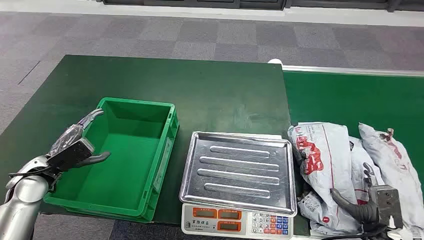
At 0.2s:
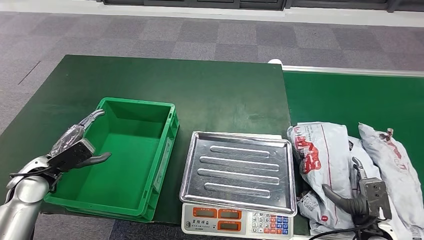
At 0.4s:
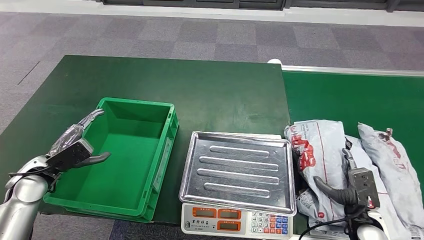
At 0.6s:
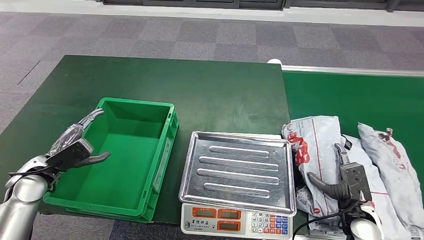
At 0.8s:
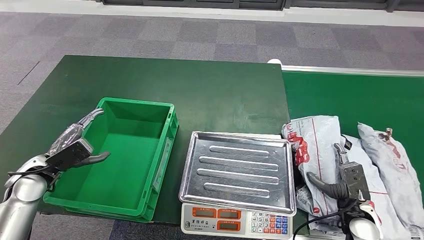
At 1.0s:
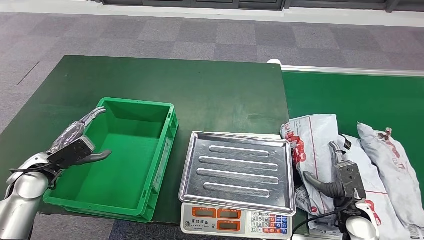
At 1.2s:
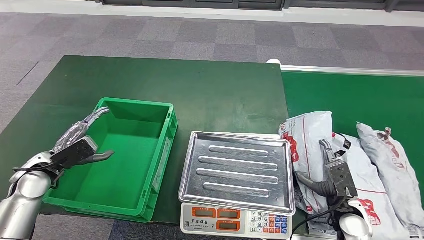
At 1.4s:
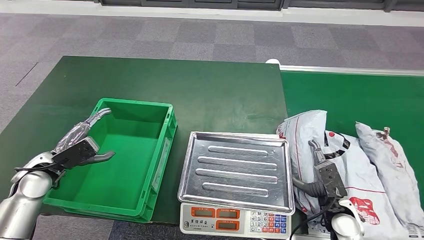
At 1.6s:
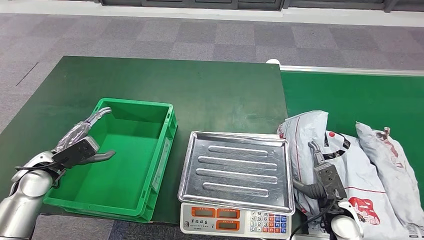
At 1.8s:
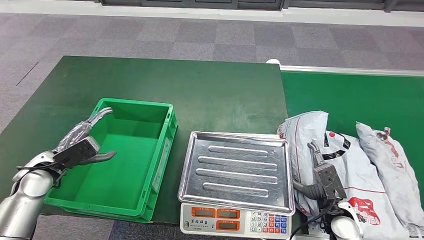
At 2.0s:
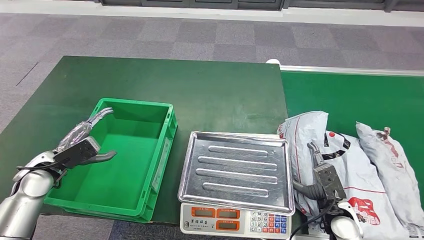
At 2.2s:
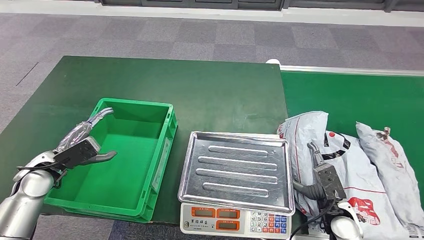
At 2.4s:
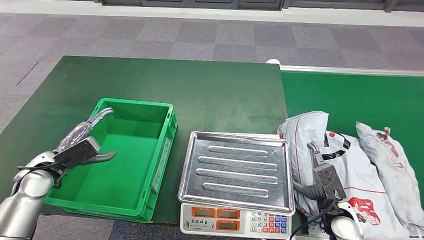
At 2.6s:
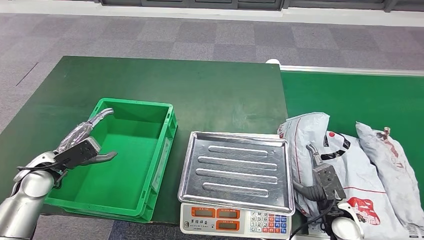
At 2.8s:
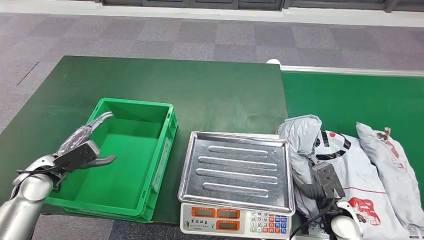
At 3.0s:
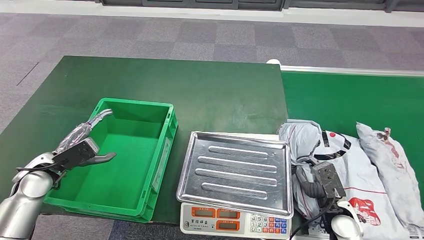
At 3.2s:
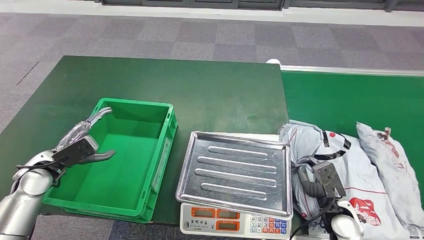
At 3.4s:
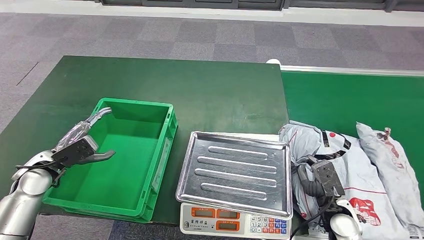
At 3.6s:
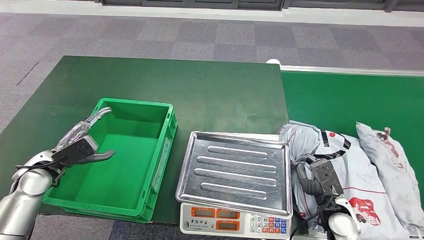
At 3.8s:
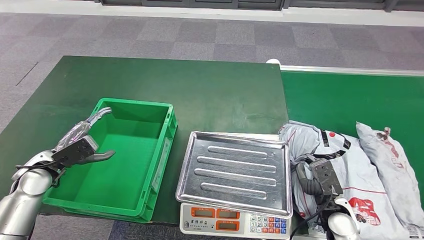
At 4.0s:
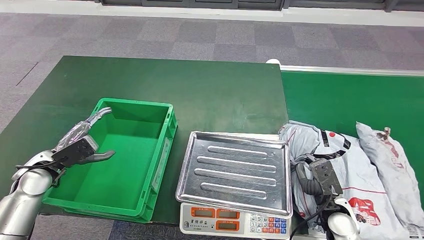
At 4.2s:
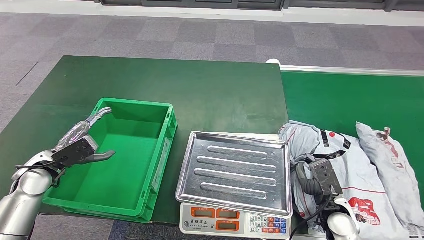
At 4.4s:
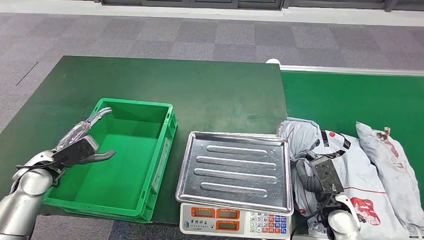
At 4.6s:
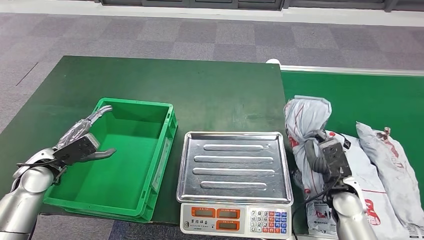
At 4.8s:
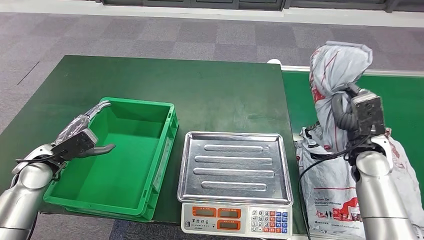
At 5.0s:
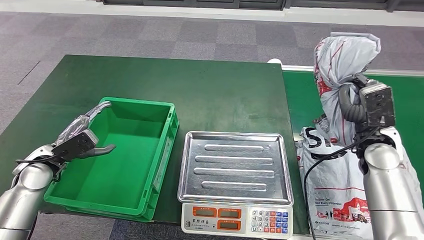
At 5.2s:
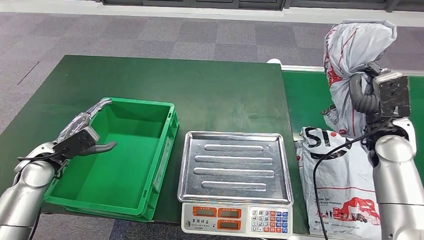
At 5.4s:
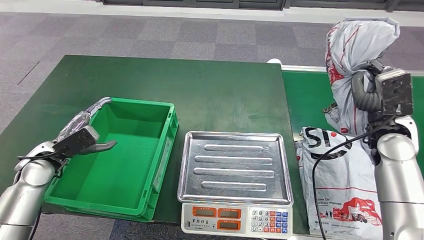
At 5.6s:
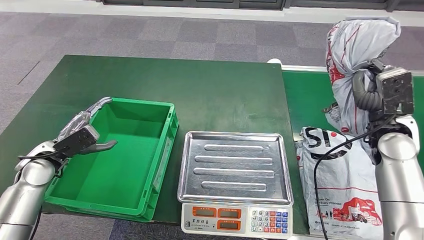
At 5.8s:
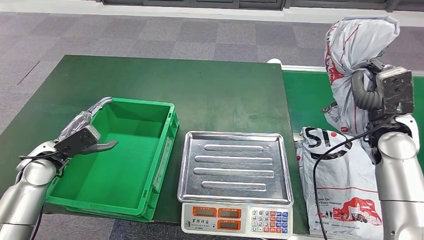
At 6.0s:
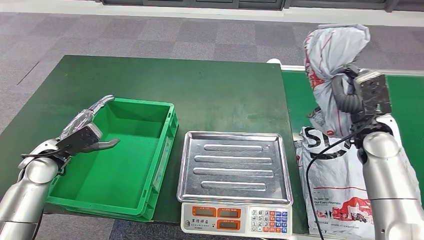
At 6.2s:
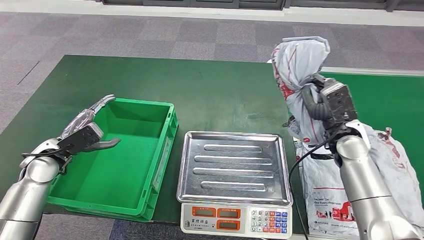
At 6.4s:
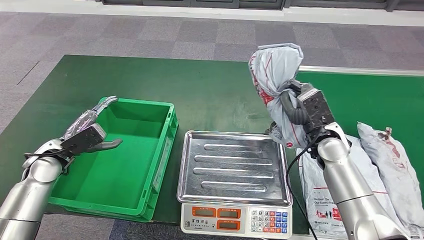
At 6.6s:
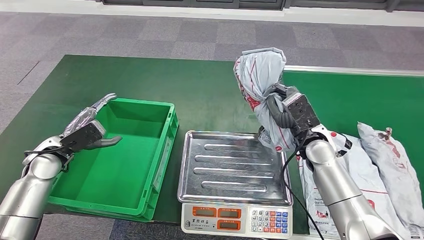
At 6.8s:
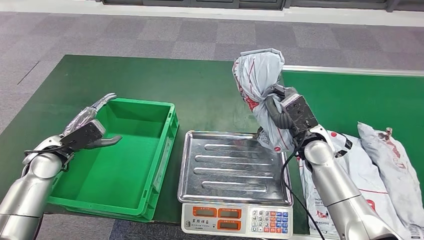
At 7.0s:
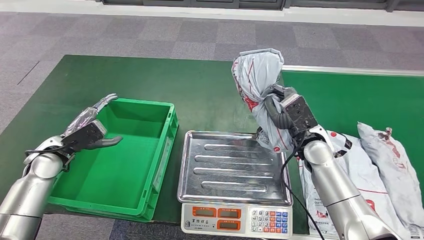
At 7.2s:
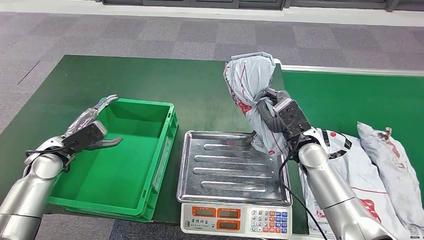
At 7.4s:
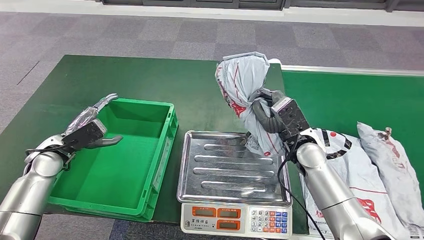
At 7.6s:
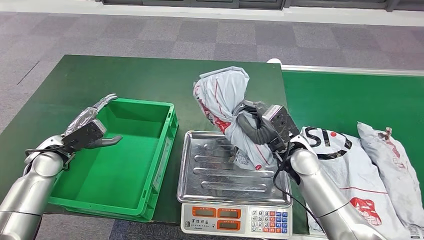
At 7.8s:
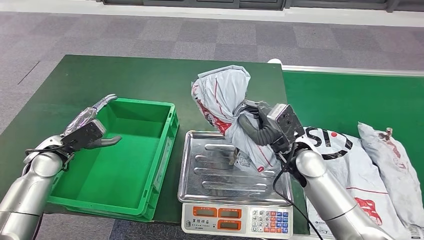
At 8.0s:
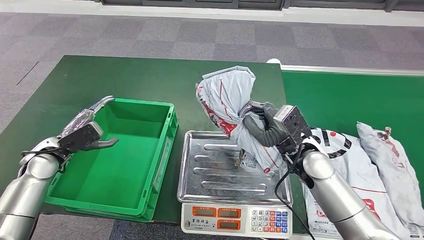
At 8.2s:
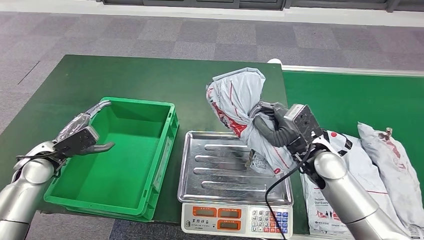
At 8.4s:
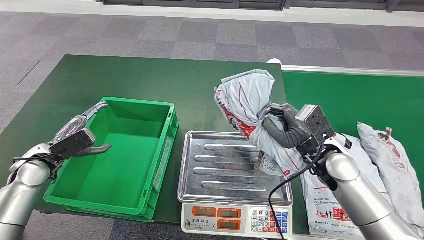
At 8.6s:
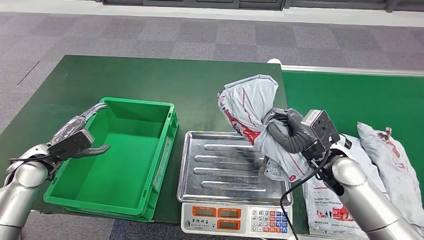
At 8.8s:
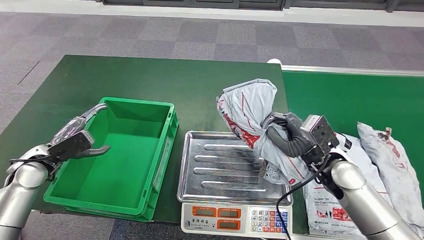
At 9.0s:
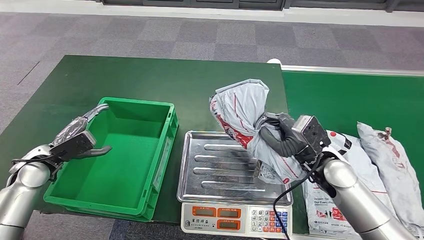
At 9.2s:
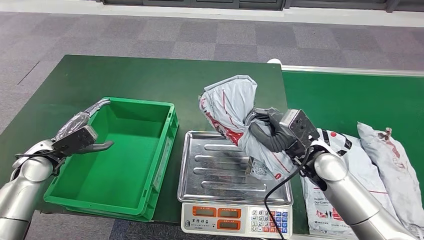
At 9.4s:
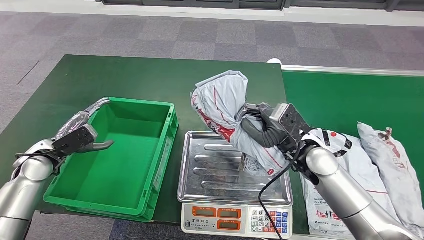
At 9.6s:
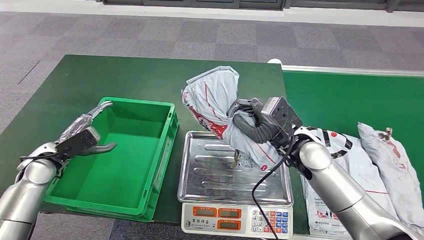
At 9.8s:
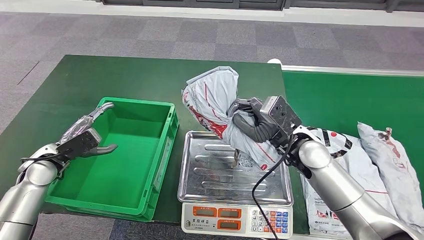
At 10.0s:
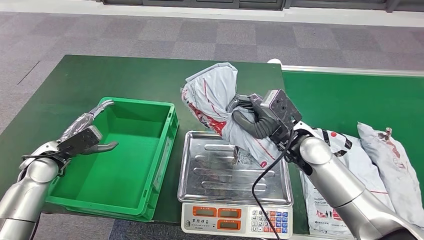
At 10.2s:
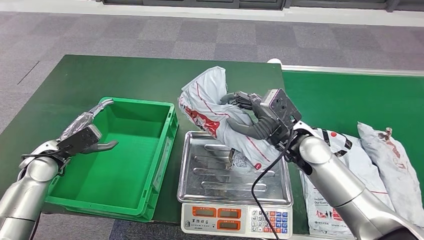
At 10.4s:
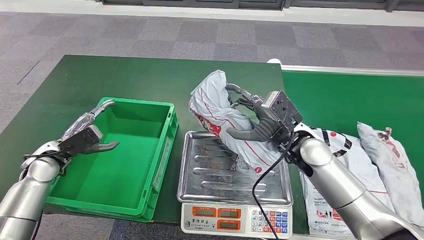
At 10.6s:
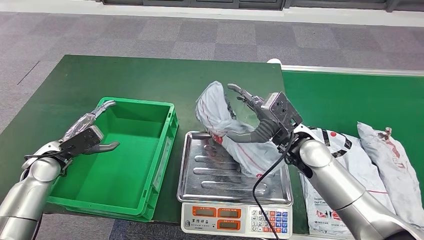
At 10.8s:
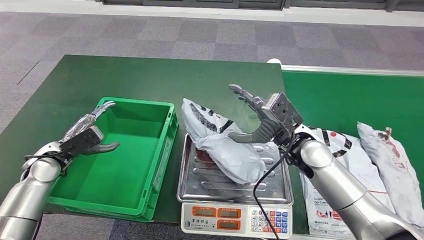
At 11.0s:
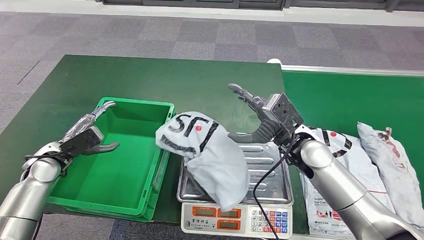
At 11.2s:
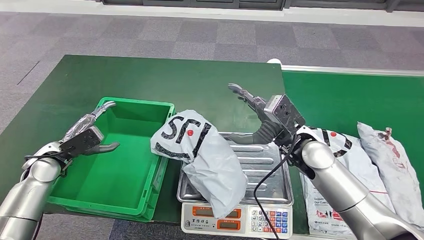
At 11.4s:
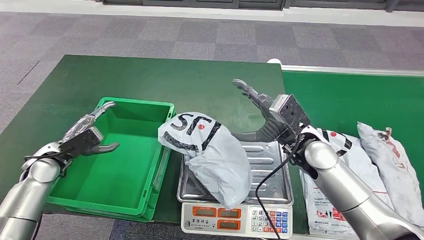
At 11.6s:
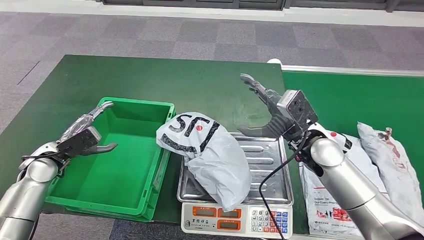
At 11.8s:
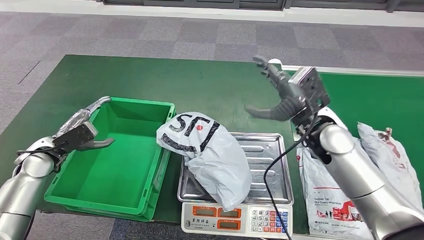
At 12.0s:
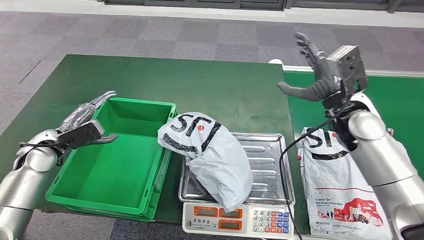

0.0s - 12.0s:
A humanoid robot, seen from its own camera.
Step, 0.0s - 5.4s: Take the parcel off the conveyor belt.
Step, 5.6s - 11.8s: Place the parcel onto the inbound machine.
1.6s - 3.0s: Both hands stay put.
3.0s - 4.4s: The hands move only a little.
9.0s - 10.4s: The right hand goes approximately 5 cm to the left.

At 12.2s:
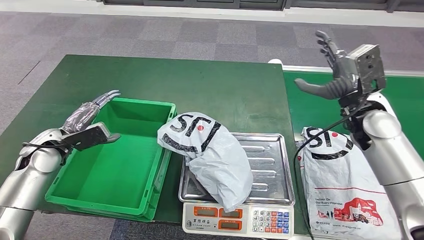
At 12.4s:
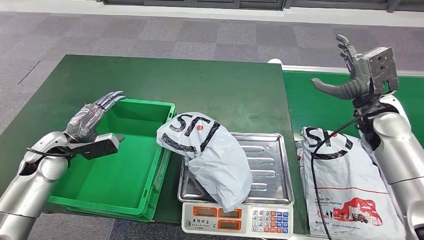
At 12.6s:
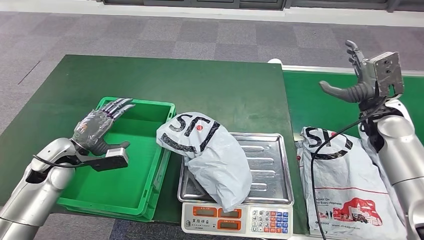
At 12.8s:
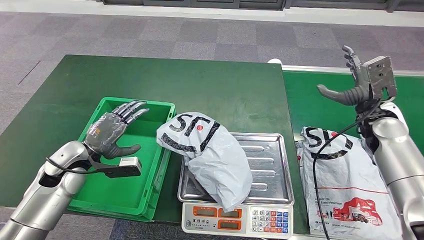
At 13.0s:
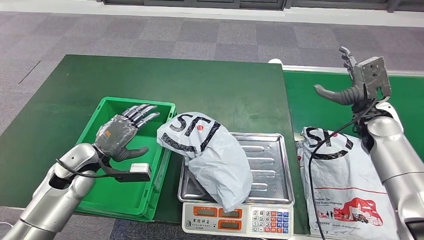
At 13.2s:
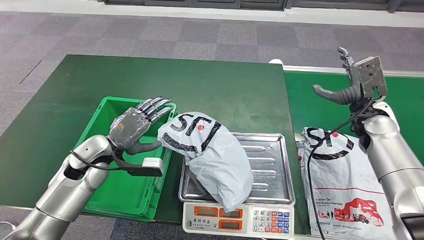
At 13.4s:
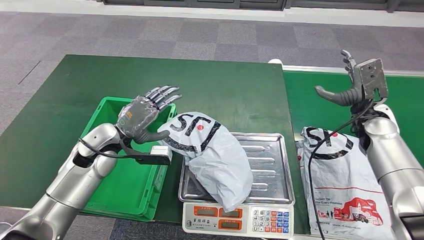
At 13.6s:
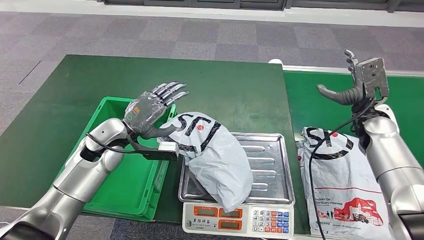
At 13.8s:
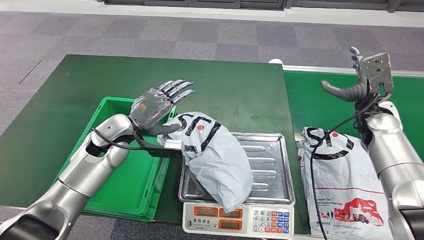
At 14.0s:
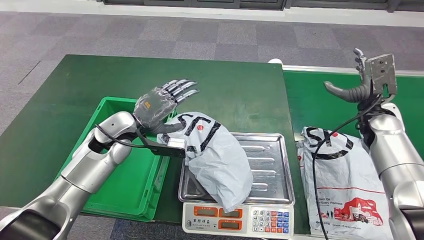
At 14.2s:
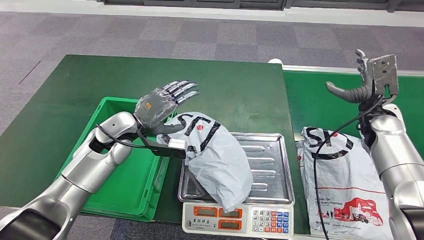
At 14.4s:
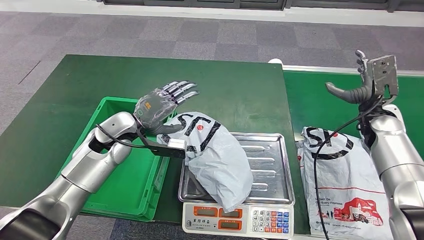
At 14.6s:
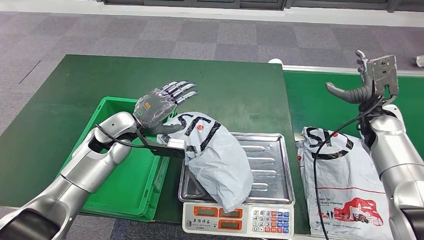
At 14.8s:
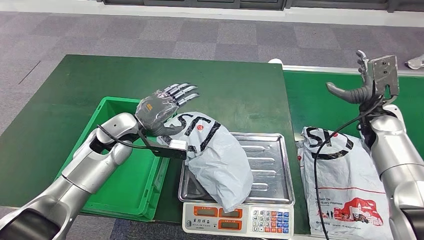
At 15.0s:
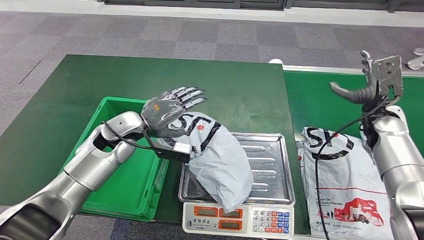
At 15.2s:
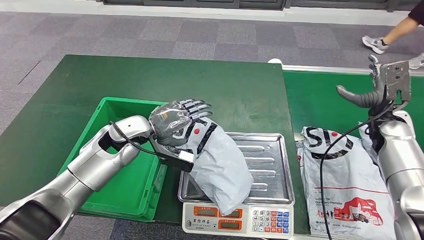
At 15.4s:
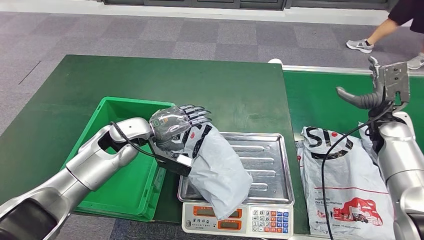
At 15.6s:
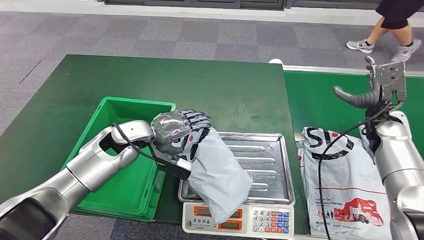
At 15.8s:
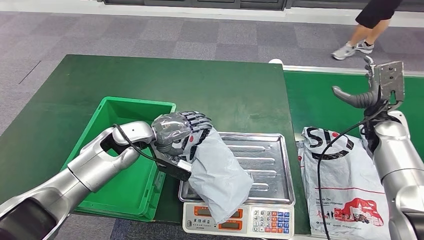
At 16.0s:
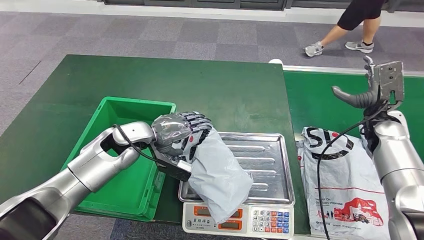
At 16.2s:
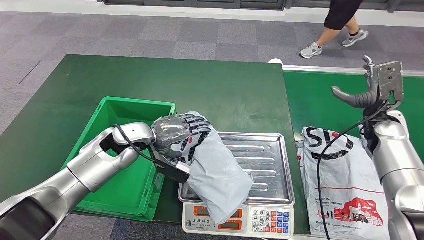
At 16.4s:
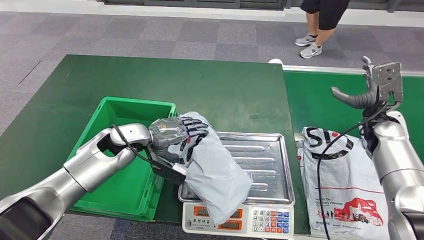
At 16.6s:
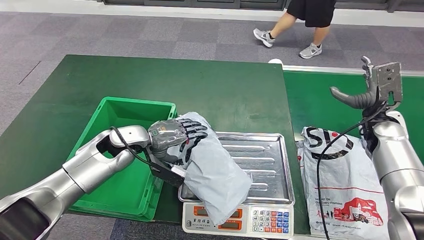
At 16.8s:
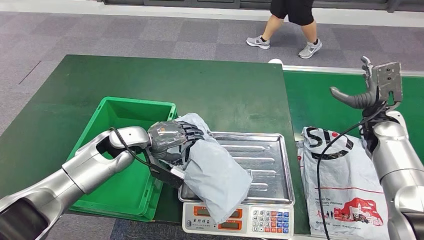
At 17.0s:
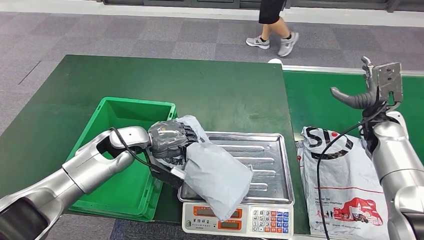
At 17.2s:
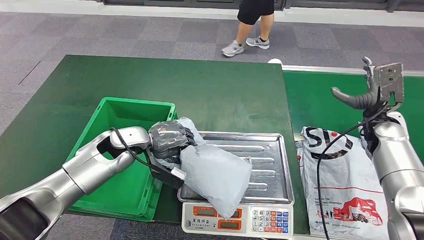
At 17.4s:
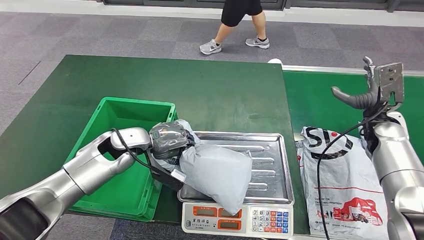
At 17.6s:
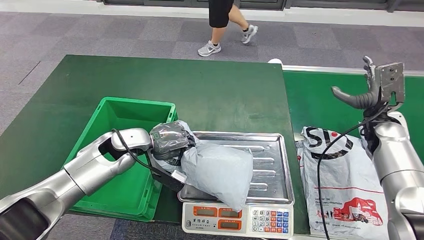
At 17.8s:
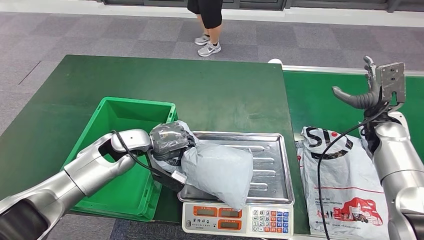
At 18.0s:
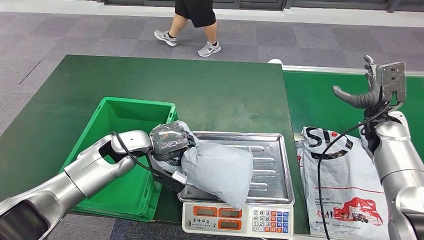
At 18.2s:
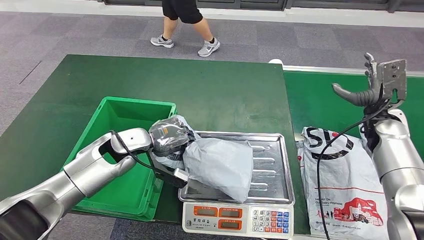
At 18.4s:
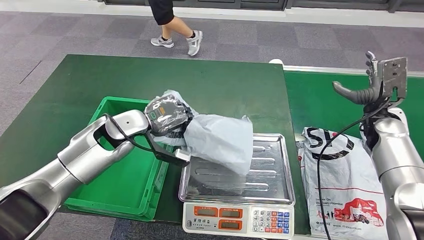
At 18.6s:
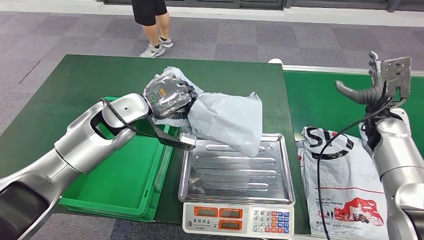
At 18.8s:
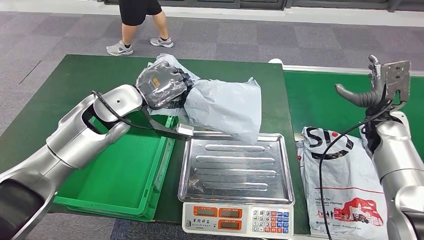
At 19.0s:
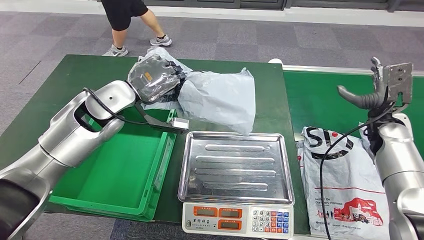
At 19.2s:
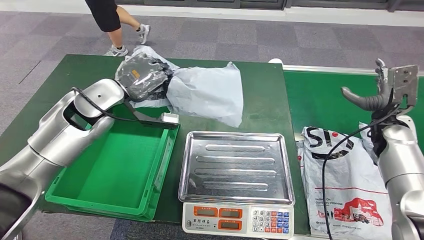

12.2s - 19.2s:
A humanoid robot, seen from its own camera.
Step, 12.2s - 19.2s: Pick up the parcel from the inbound machine.
13.6s - 15.0s: The hands move only a little.
16.4s - 17.8s: The hands stay close to where they were, moving slightly.
